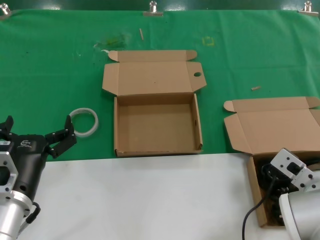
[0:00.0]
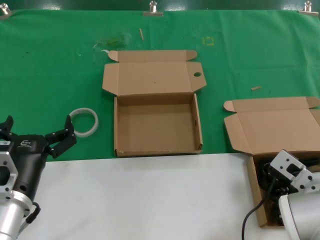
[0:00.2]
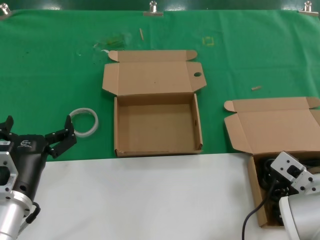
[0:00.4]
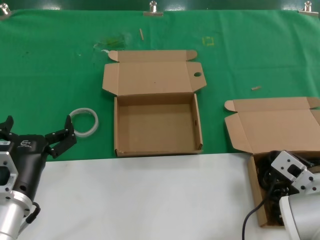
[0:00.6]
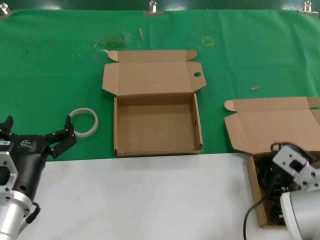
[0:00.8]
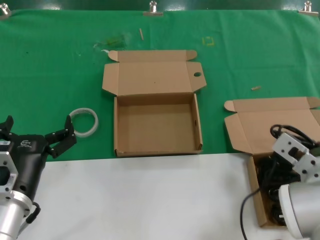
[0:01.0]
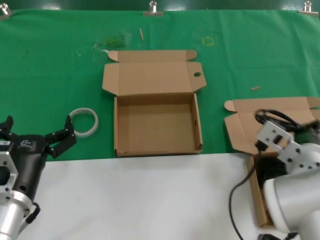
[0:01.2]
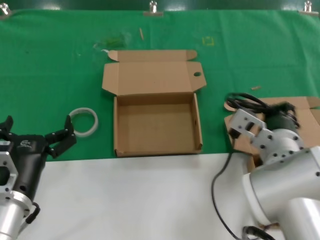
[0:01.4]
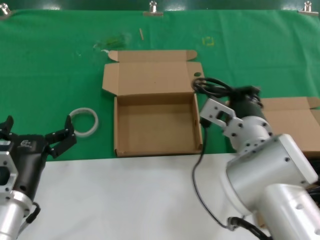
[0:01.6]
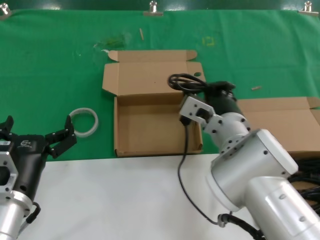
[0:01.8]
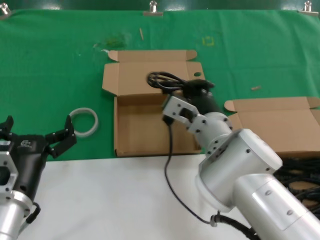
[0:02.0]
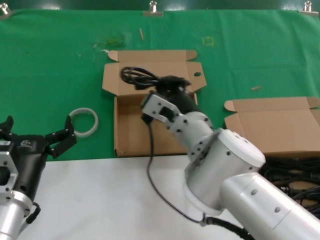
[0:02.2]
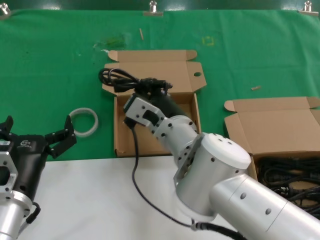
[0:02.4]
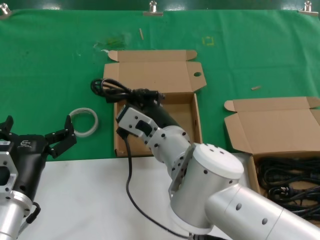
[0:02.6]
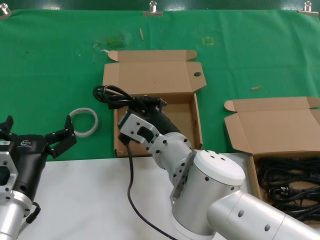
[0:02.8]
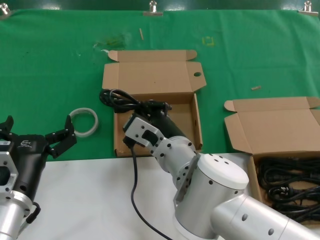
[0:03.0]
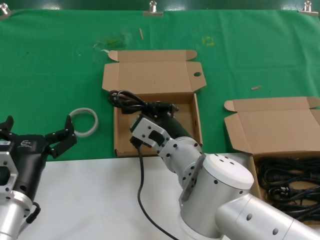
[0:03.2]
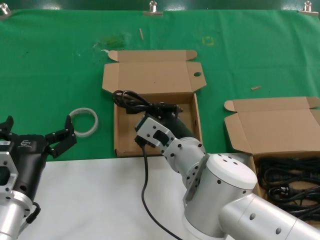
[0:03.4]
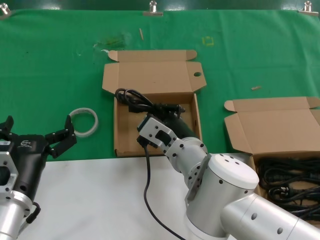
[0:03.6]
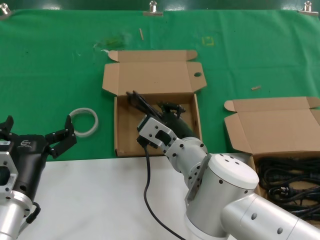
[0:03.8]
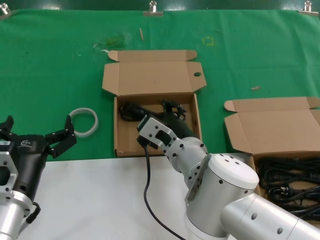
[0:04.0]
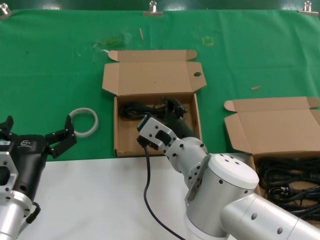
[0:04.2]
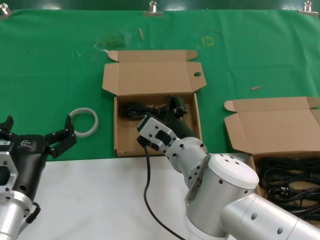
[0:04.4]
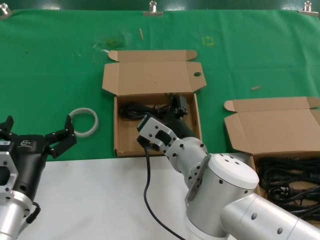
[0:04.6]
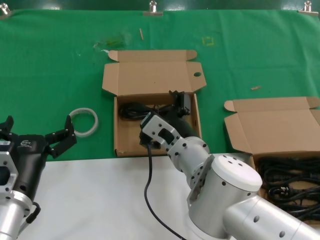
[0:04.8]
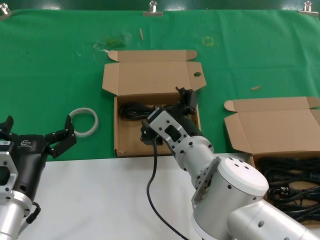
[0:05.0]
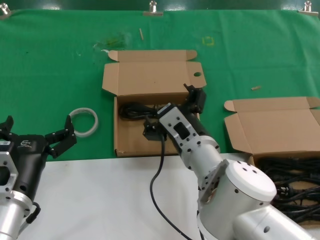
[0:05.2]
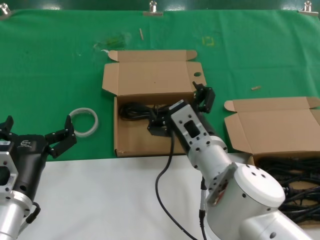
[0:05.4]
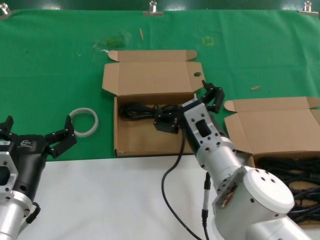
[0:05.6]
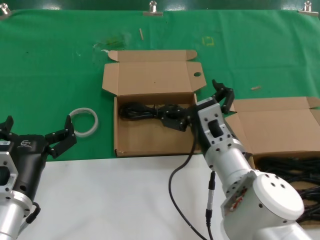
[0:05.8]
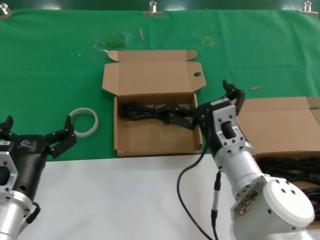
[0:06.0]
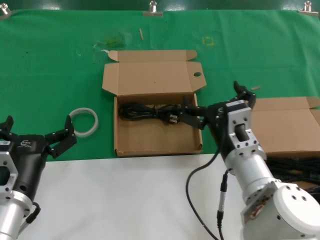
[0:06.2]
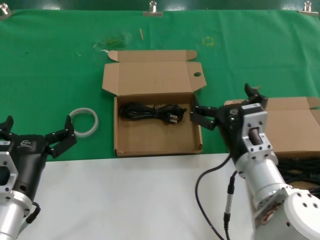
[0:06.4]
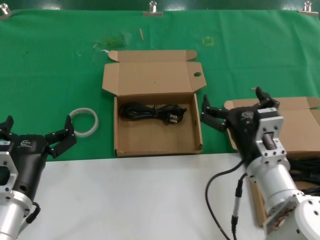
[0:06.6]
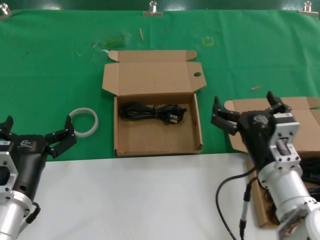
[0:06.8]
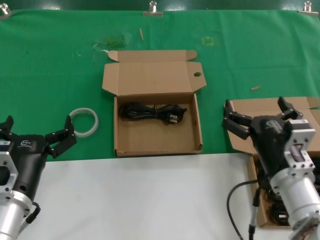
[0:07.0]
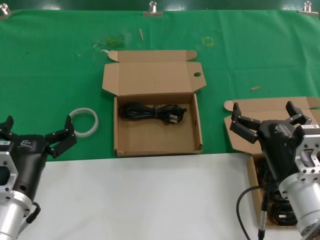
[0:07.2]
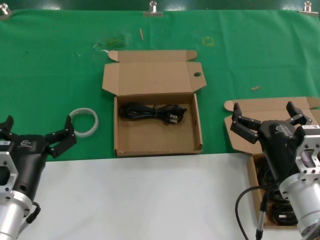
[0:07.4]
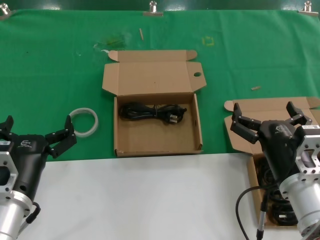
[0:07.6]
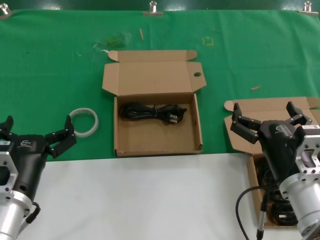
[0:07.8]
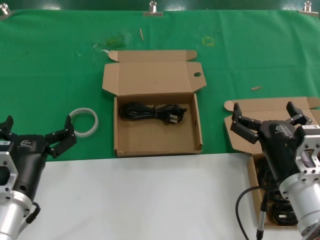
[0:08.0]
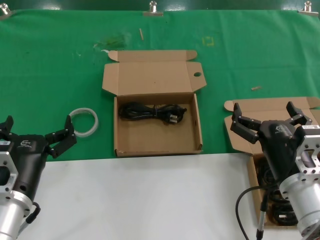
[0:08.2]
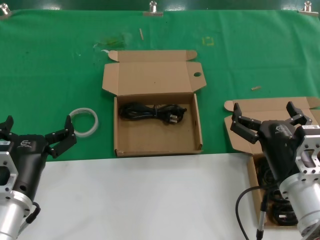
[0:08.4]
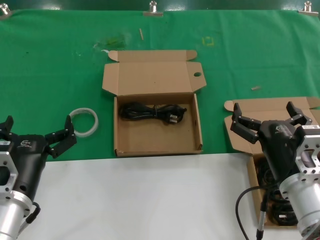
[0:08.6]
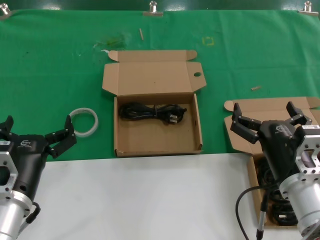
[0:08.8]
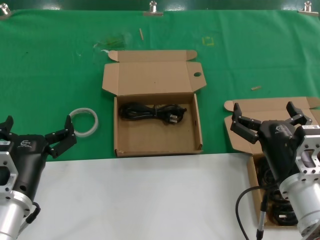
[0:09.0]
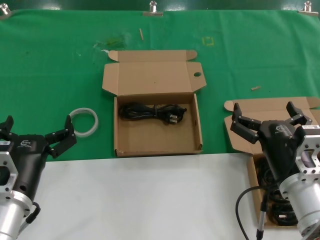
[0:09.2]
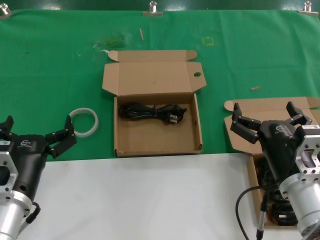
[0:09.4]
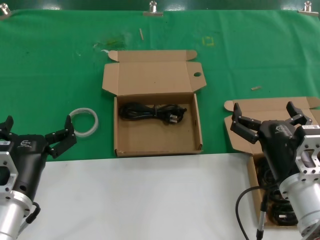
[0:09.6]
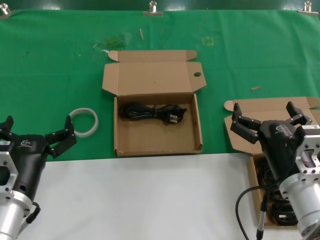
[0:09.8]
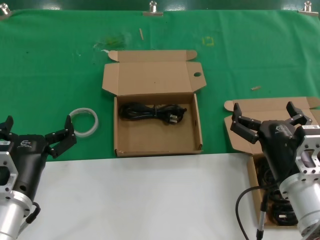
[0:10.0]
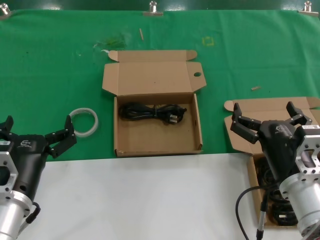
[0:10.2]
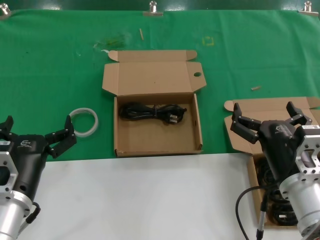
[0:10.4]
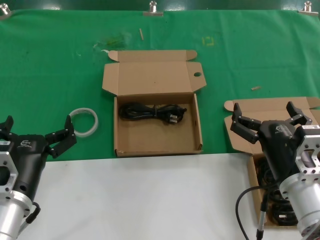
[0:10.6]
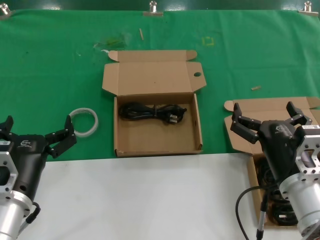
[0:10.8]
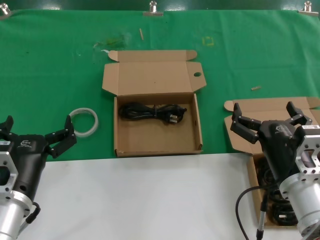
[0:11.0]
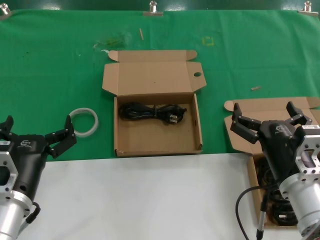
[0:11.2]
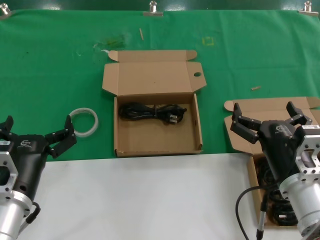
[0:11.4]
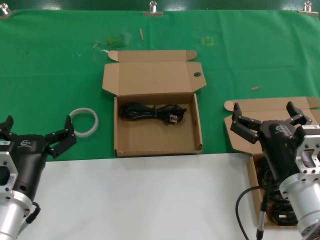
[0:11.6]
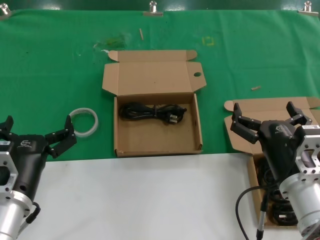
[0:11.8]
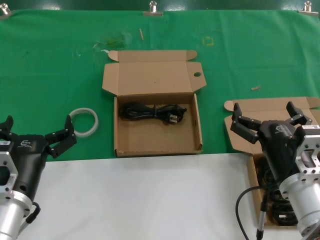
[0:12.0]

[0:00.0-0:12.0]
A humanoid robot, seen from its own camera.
Task of the whole recording: take the parts from the box containing them and put them into an empty box.
Step, 0.8 to 3.8 s: Place the data cable in the another box.
0.0 to 1.6 s: The right hand heads to the left and forward, covering roughly 10 cm.
1.6 to 3.0 s: The right hand moves to the left, approximately 10 cm.
3.0 to 4.4 s: There are only small adjustments of the hands.
4.4 to 6.0 s: The right hand travels to the right by roughly 5 cm.
6.0 to 7.6 s: The right hand heads to the right and backward, covering some 10 cm.
7.6 to 12.0 s: Both hands stay put.

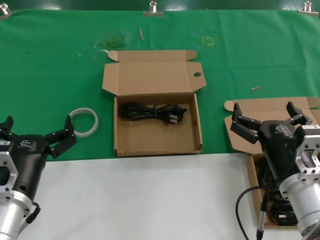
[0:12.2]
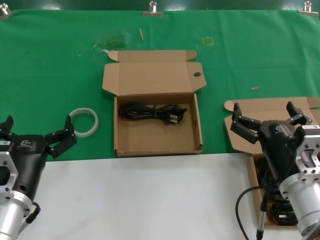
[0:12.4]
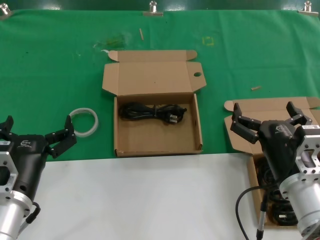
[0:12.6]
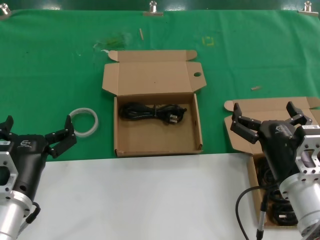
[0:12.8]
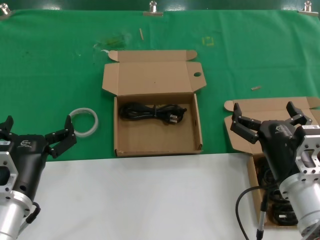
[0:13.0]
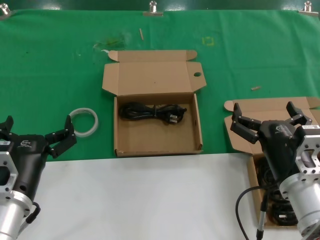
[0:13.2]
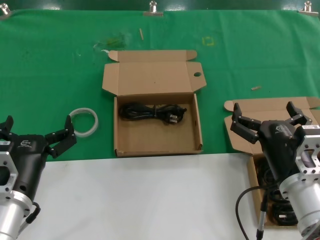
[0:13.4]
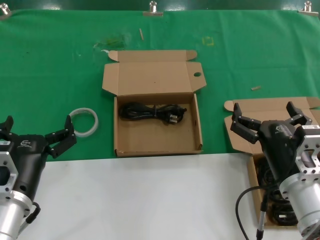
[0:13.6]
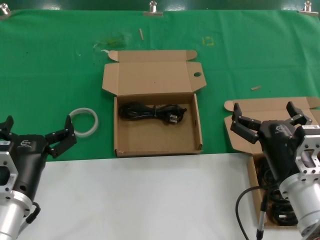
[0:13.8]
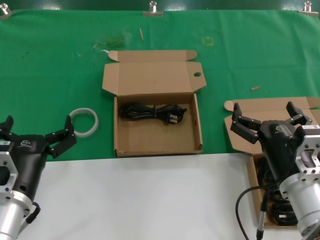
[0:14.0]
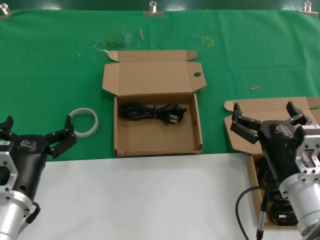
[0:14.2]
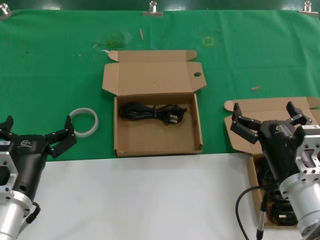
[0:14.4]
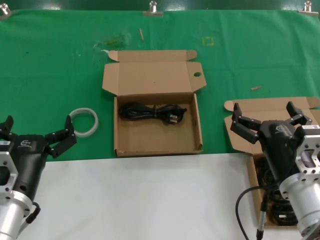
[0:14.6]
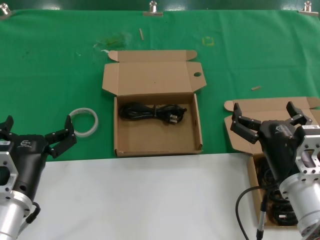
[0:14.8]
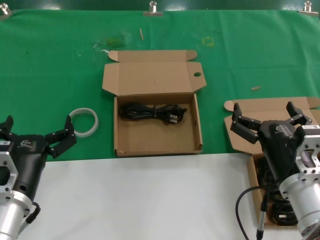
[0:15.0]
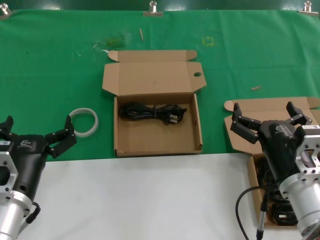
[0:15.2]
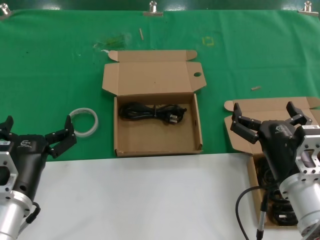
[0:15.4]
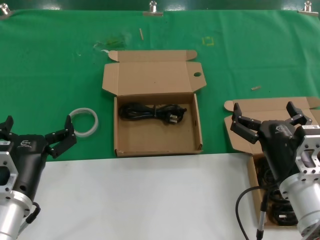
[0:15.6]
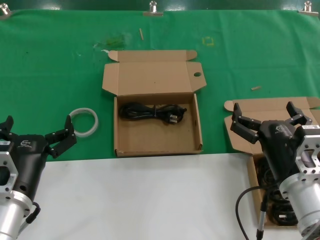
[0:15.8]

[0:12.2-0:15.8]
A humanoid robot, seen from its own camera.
Task of the whole recording: take the parts from the box containing them and put them into an empty box.
12.2 to 15.8 s: The two hands keep their place.

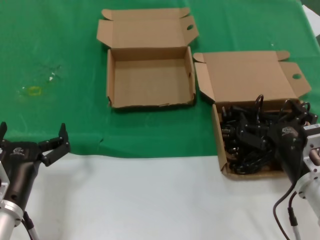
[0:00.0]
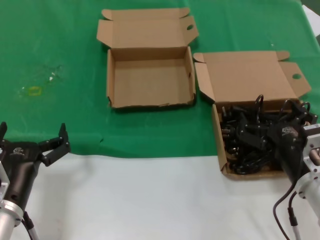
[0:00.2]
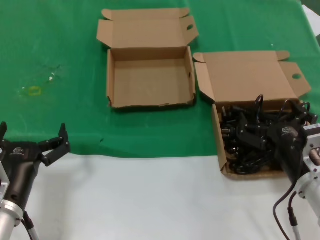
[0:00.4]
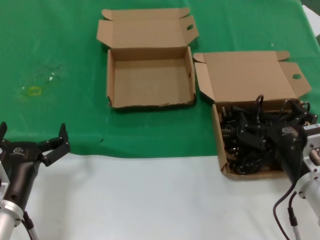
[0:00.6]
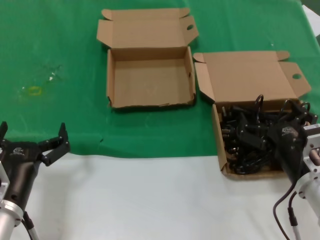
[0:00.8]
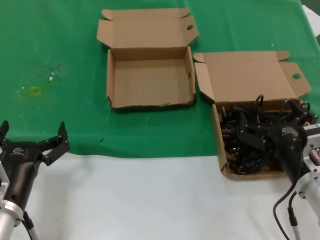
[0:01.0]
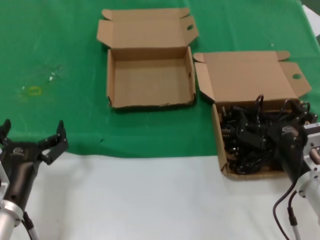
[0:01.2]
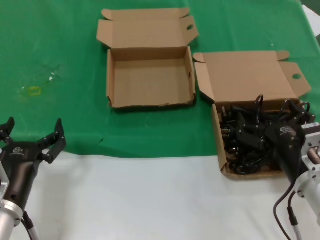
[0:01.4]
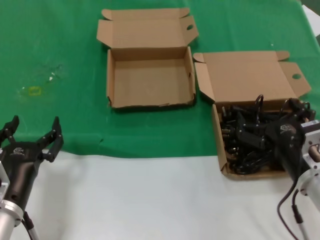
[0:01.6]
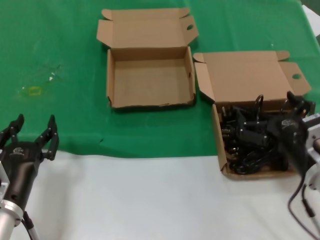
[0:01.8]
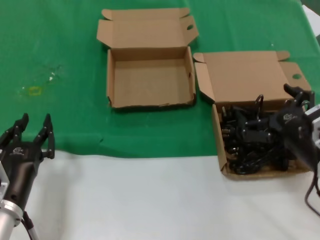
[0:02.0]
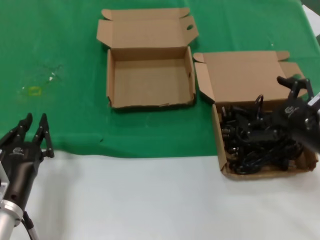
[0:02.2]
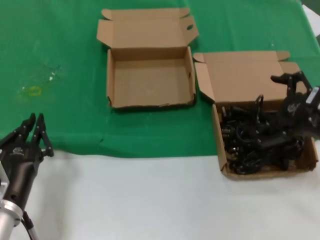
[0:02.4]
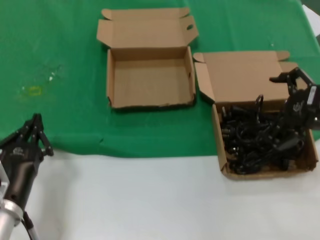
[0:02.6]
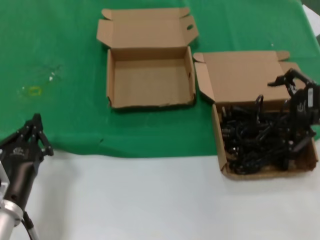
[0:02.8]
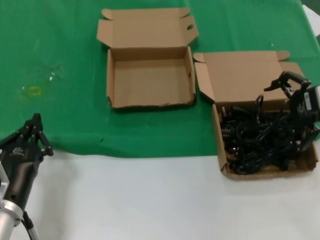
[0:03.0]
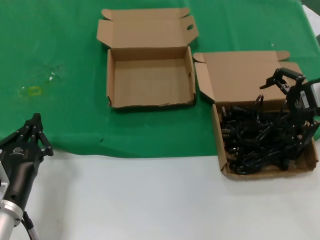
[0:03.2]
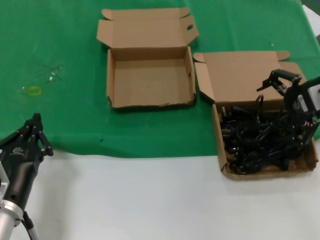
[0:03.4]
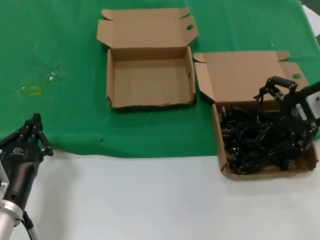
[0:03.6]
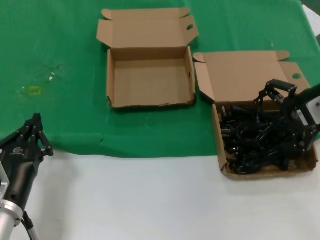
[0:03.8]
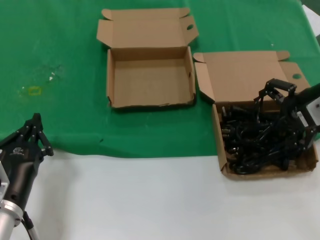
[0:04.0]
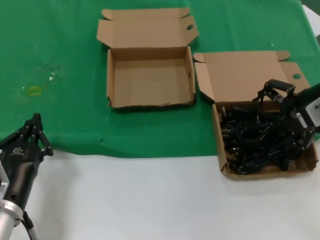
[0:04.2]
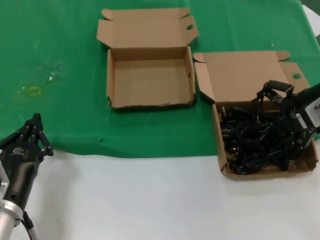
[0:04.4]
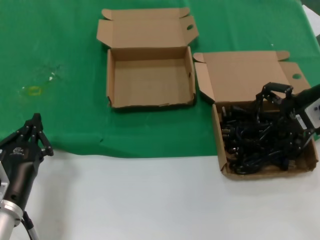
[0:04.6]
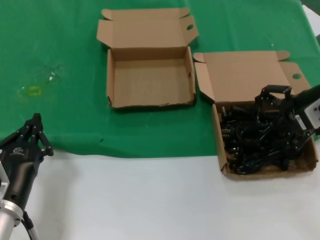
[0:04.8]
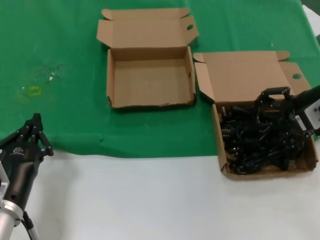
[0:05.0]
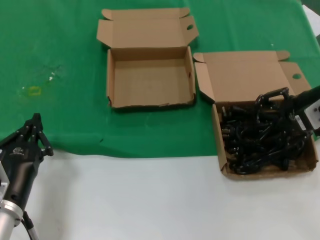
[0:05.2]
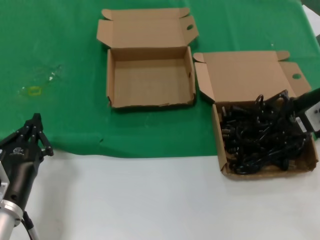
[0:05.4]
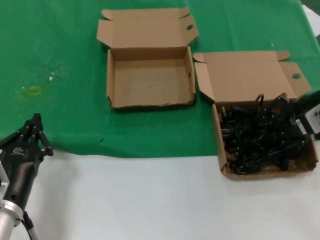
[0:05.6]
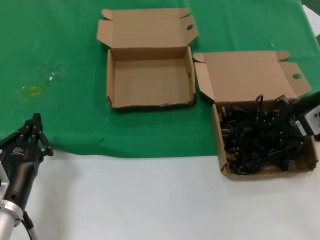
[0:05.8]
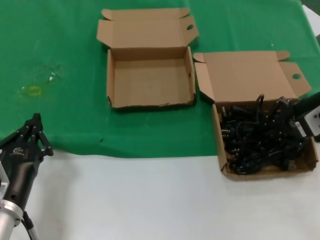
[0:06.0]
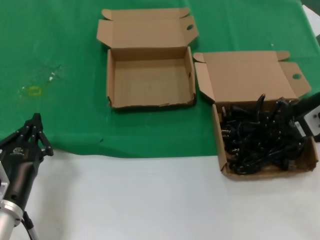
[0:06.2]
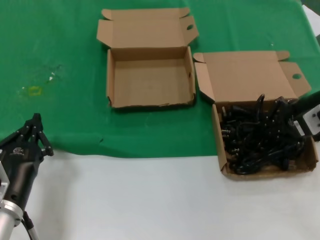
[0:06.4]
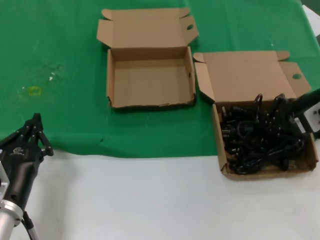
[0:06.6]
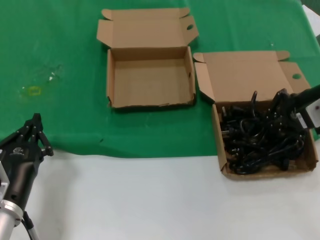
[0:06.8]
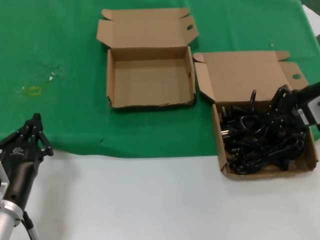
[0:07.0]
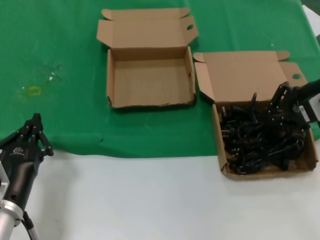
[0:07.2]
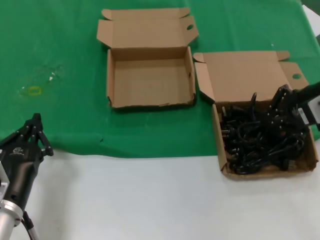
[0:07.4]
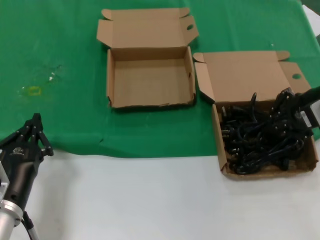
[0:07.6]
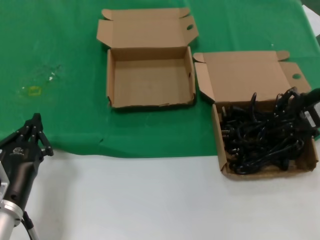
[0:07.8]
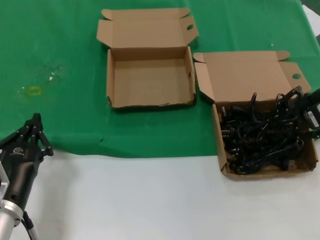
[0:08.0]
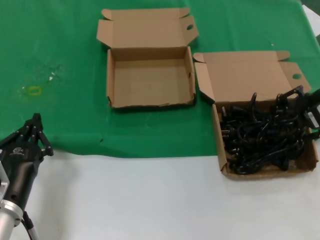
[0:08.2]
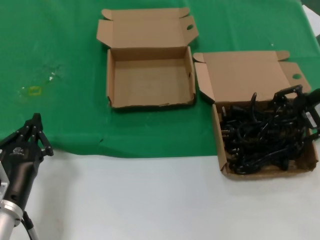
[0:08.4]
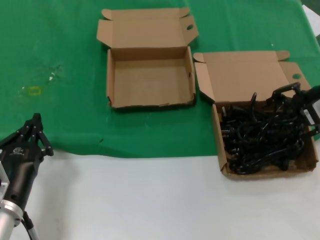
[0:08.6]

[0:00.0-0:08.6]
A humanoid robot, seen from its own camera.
Task of the whole recording: take the parts from the box containing them and put them into an empty box.
Step, 0.0 to 6.2 s: Grasp the data cable.
0.0 to 1.4 s: Both hands stay about where they are.
1.4 to 2.8 s: The right hand heads upward, to the right and forward, covering about 20 cm.
2.8 to 4.4 s: The right hand heads forward, covering roughly 5 cm.
4.4 to 5.8 s: The two hands keep their place.
5.8 to 8.6 s: The hands move only a little.
